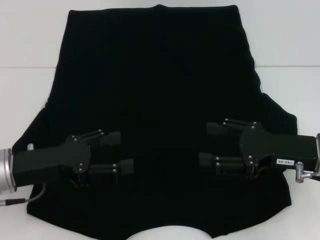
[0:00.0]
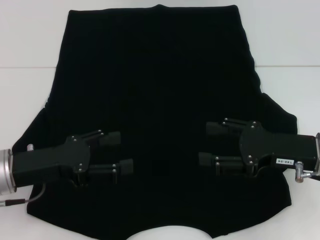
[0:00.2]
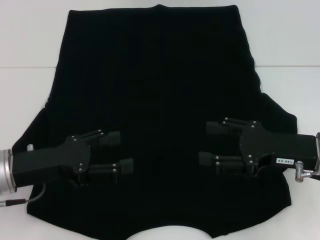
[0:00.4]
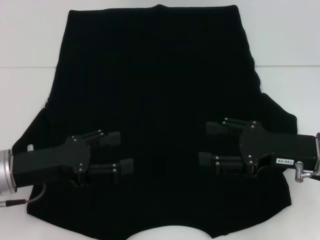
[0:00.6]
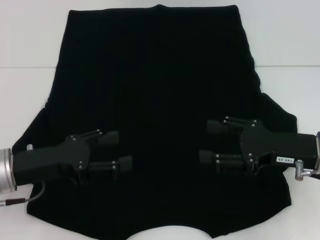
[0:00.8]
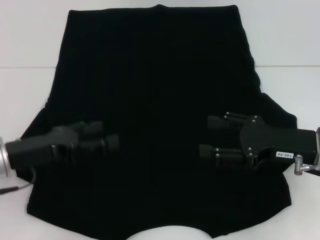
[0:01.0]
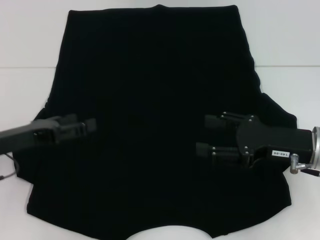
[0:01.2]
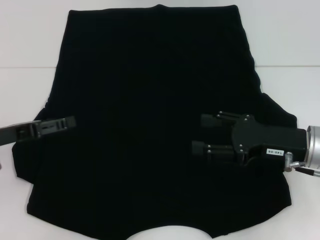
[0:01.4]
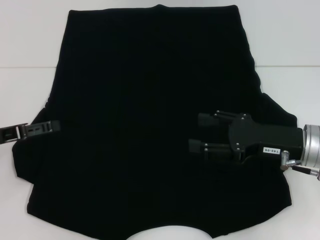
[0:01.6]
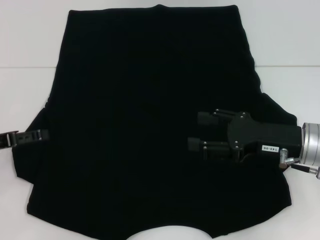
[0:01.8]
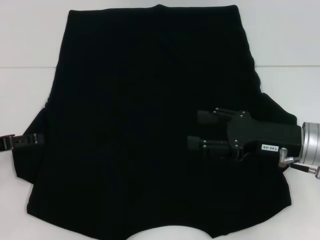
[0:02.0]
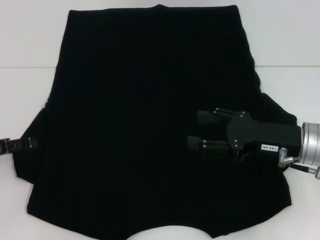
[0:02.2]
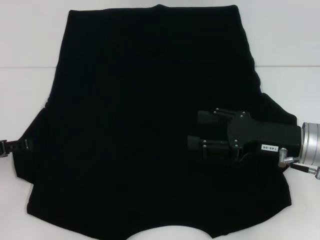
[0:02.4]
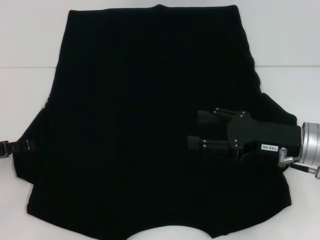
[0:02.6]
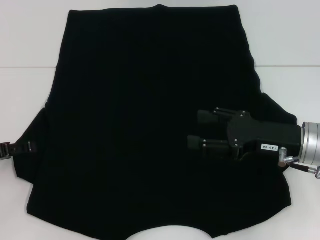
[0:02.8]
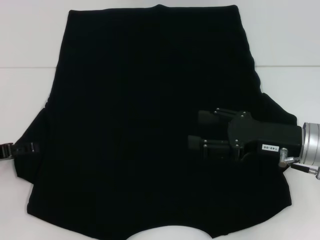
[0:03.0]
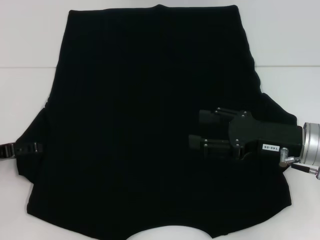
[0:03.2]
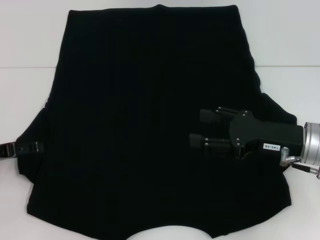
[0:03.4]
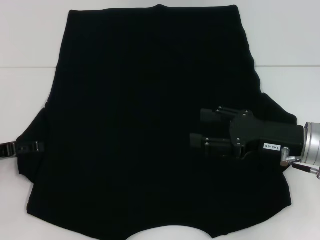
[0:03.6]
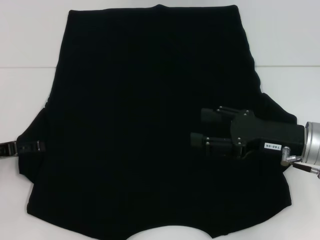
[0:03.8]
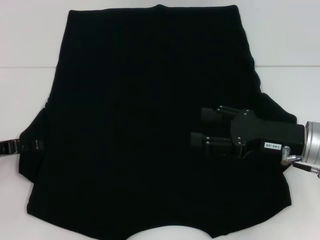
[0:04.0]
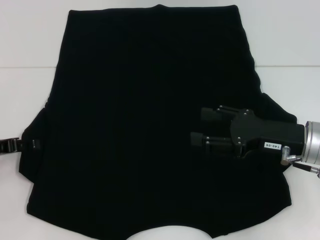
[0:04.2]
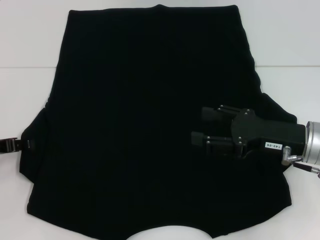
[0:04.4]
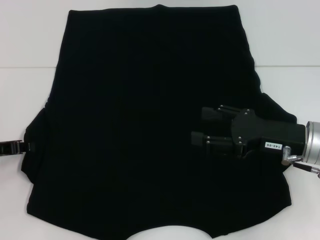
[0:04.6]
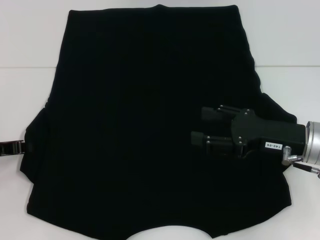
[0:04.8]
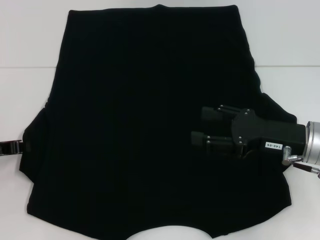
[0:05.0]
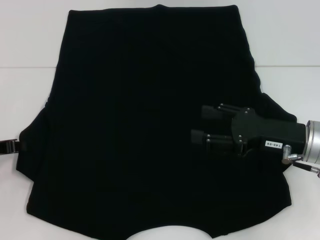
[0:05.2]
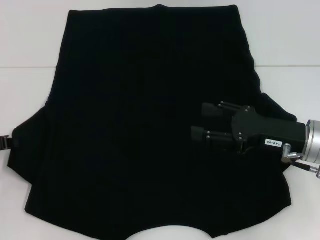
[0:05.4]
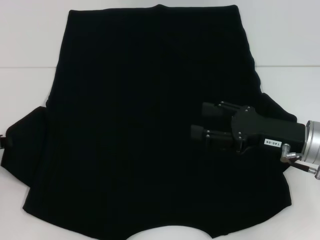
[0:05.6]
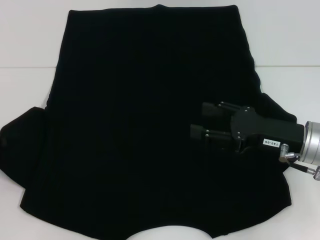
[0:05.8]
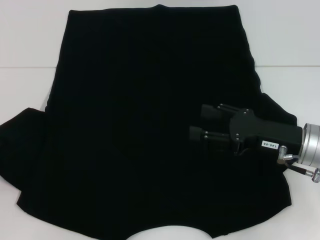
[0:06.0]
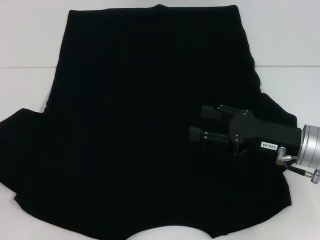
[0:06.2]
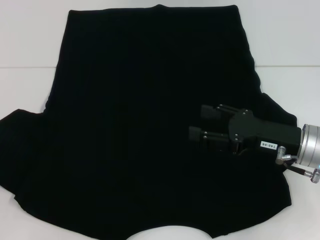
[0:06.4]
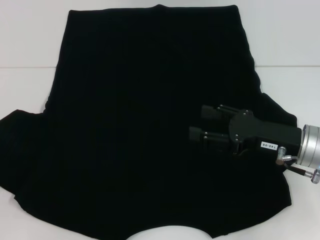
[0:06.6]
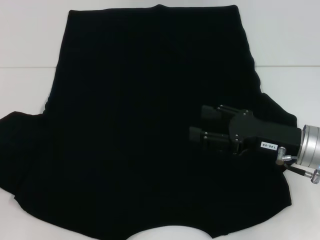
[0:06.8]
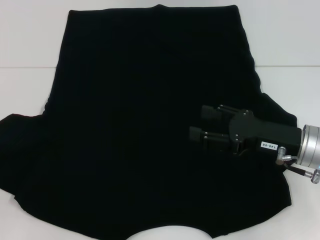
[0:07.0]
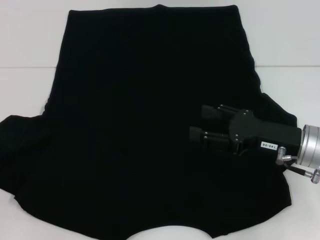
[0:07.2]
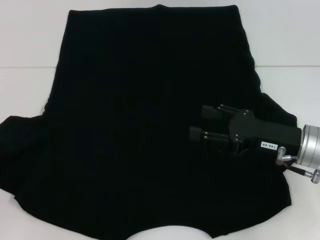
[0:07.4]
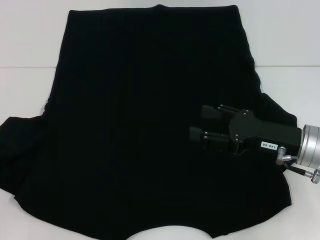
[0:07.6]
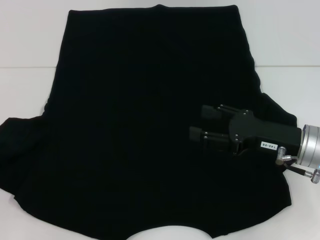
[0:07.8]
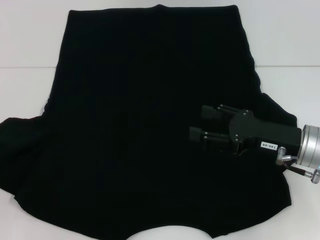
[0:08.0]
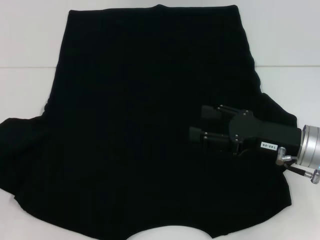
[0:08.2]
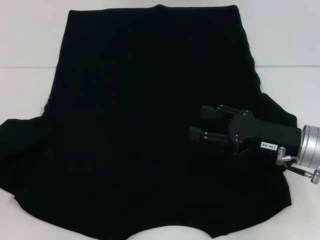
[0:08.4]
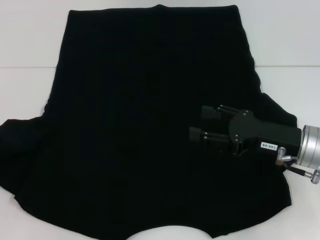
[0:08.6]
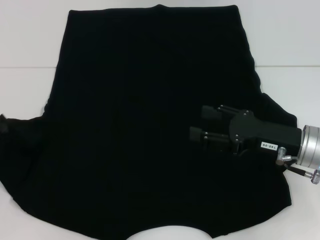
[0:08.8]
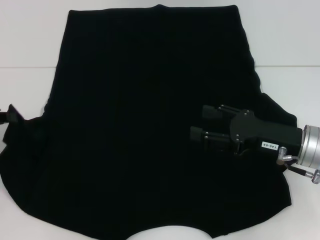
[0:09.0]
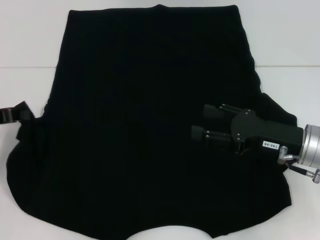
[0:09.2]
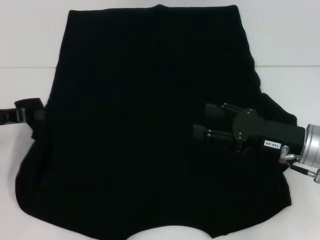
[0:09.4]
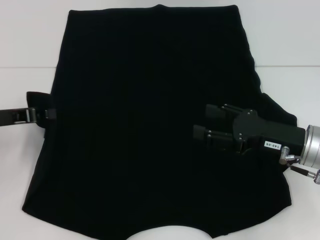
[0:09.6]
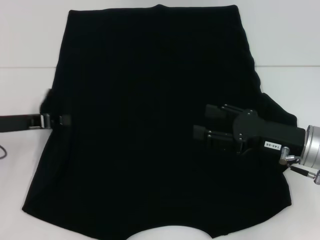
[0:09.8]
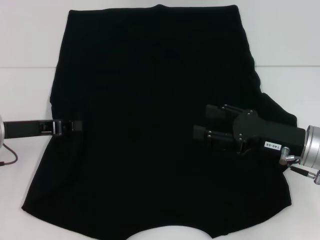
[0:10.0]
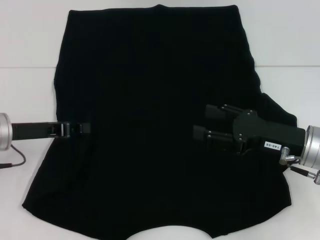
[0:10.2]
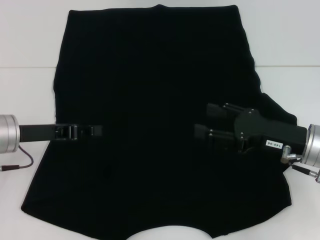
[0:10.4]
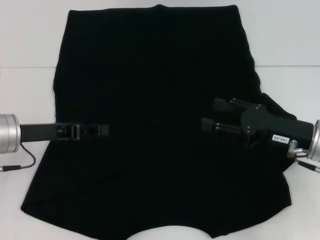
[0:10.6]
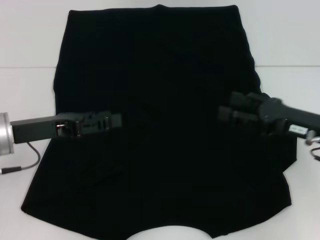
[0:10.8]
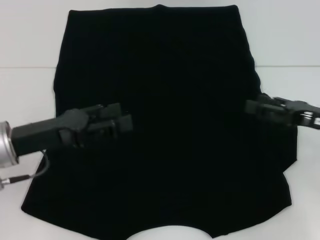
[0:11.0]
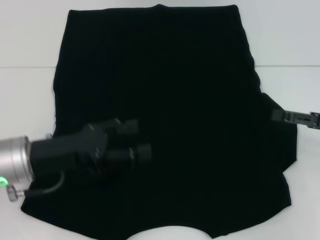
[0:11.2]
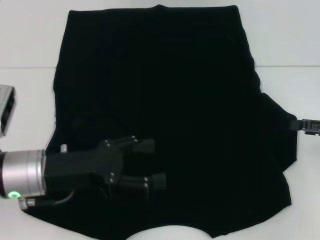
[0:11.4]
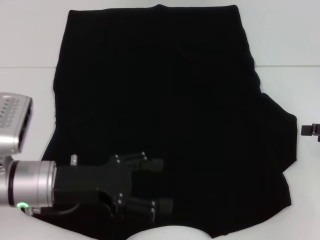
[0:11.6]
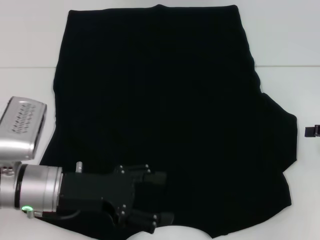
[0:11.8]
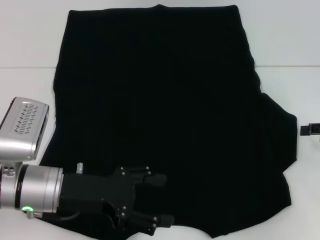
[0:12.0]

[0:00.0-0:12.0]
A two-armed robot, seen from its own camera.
Step, 0:00.0 to 0:10.6: Fold the bottom left sleeve with your left hand.
0:00.0 to 0:01.6: The left gripper is displaced to the left by about 10 cm.
0:01.6 to 0:03.0: The grippers stay close to where they were, moving slightly.
0:03.0 to 0:04.4: Both grippers stay about where they are.
0:04.4 to 0:06.0: The left gripper closes.
0:06.0 to 0:07.6: The grippers stay close to where they were, moving slightly.
0:07.6 to 0:09.0: The left gripper changes place by approximately 5 cm.
0:09.0 to 0:10.4: The left gripper goes some 10 cm to the right.
0:10.4 to 0:12.0: The right gripper heads to the right, covering approximately 15 cm; the left gripper travels to the right and backward by roughly 10 cm, and opens.

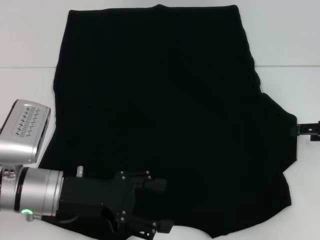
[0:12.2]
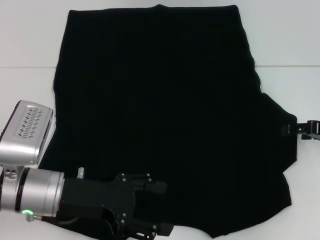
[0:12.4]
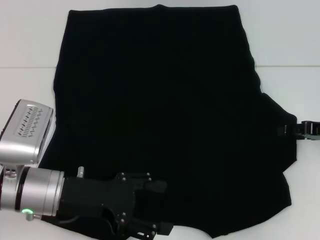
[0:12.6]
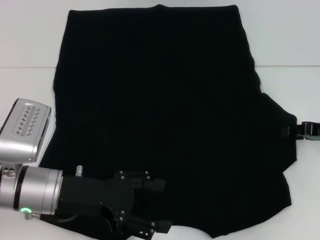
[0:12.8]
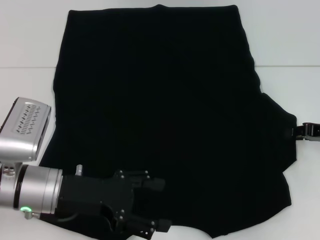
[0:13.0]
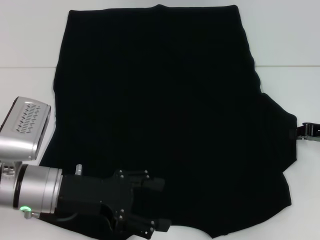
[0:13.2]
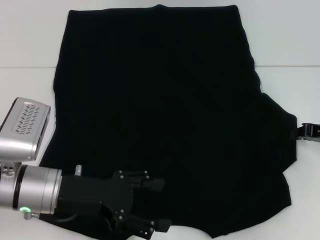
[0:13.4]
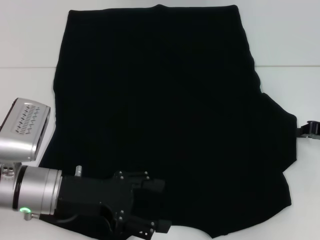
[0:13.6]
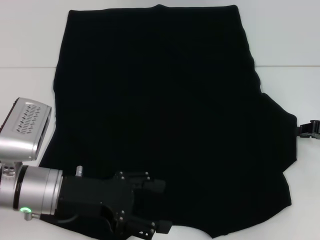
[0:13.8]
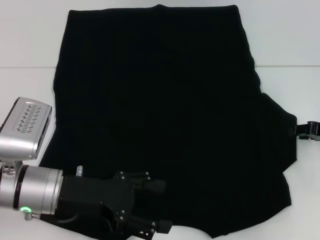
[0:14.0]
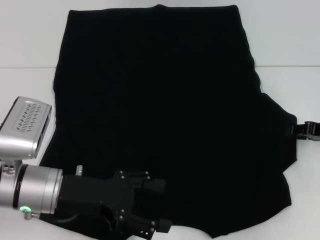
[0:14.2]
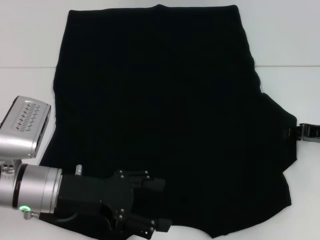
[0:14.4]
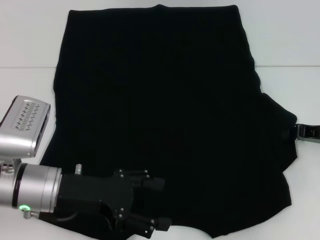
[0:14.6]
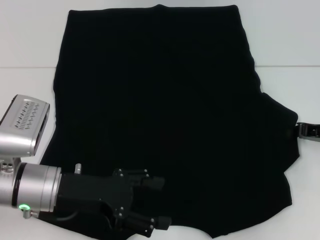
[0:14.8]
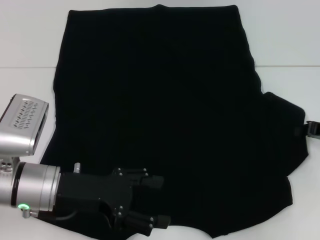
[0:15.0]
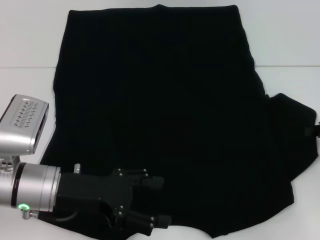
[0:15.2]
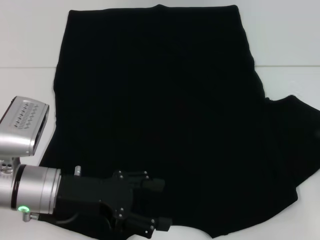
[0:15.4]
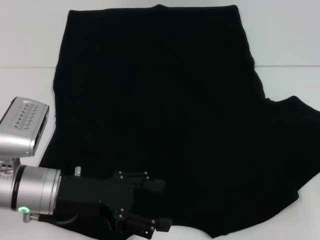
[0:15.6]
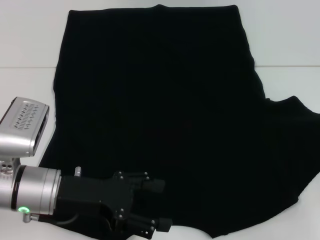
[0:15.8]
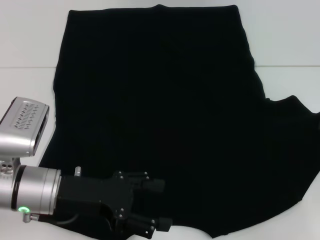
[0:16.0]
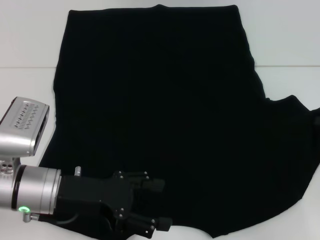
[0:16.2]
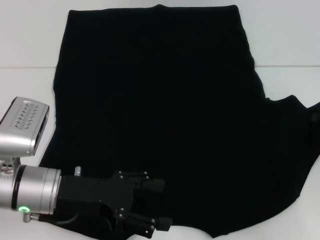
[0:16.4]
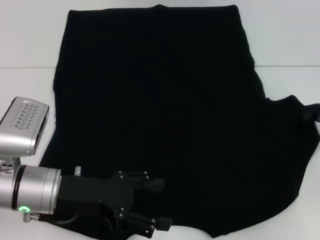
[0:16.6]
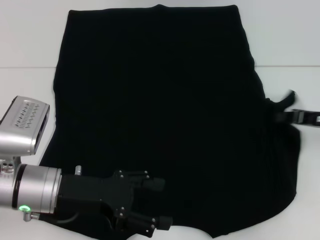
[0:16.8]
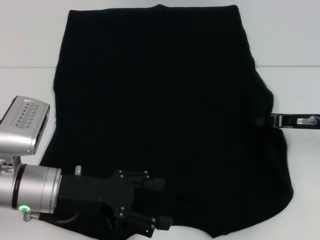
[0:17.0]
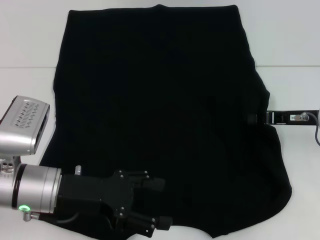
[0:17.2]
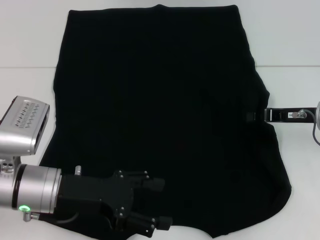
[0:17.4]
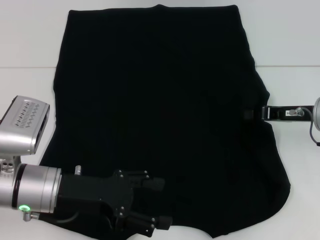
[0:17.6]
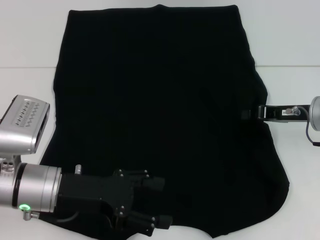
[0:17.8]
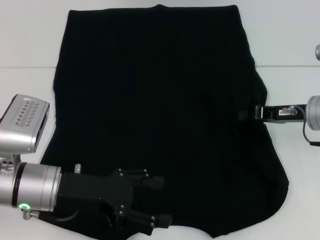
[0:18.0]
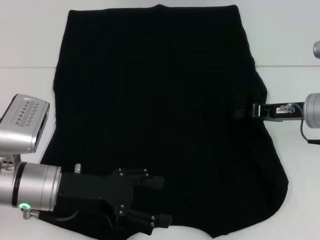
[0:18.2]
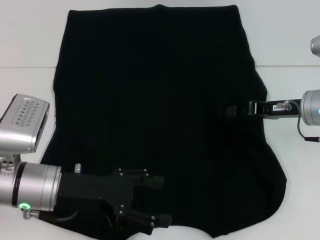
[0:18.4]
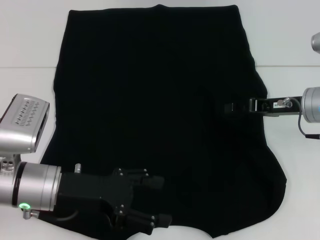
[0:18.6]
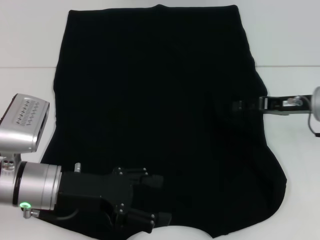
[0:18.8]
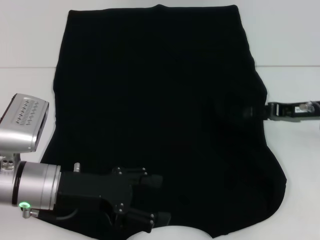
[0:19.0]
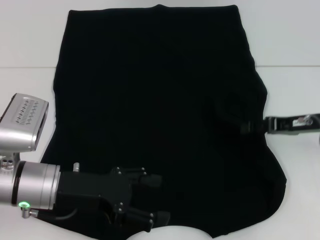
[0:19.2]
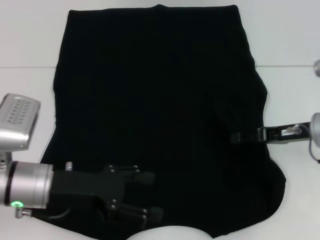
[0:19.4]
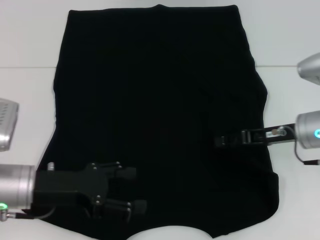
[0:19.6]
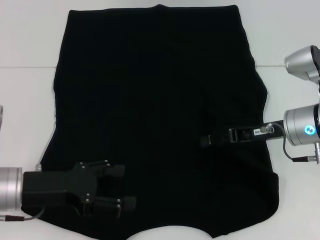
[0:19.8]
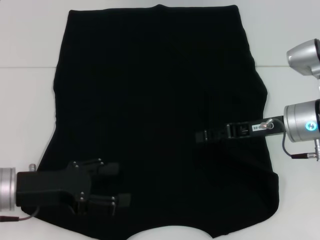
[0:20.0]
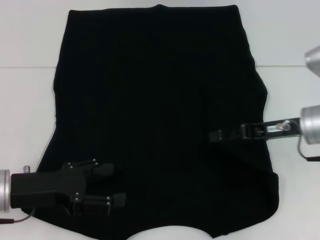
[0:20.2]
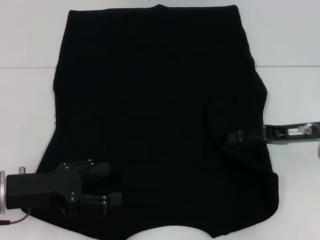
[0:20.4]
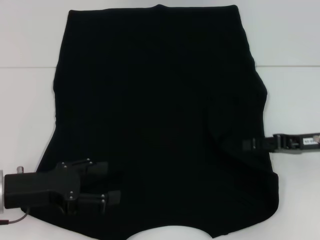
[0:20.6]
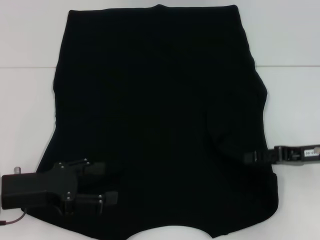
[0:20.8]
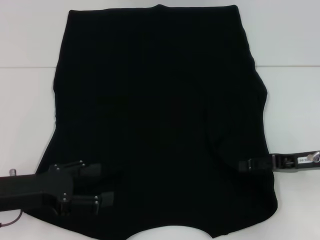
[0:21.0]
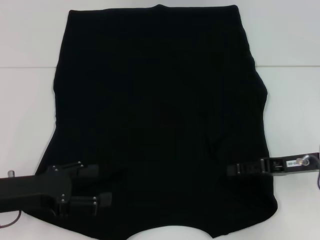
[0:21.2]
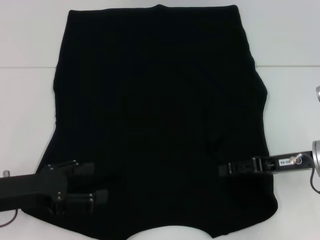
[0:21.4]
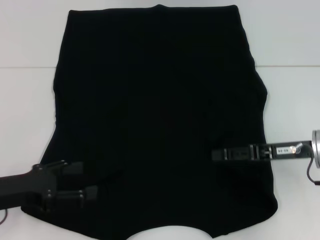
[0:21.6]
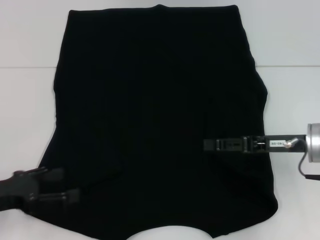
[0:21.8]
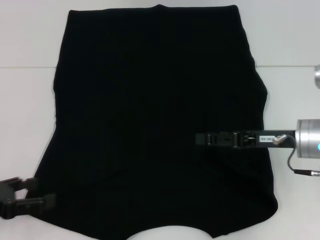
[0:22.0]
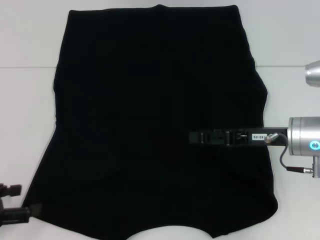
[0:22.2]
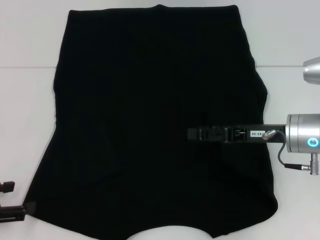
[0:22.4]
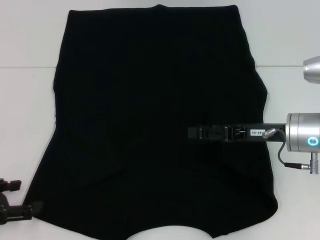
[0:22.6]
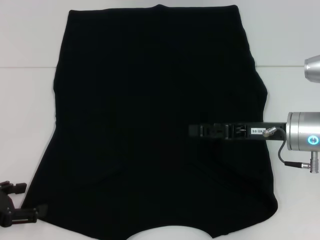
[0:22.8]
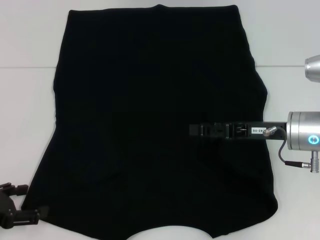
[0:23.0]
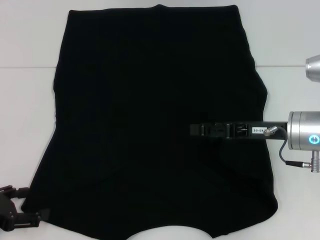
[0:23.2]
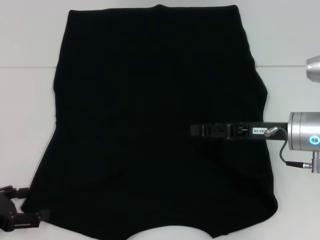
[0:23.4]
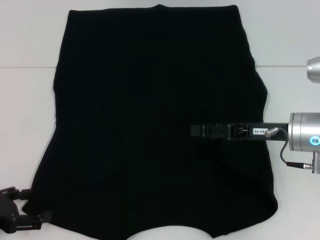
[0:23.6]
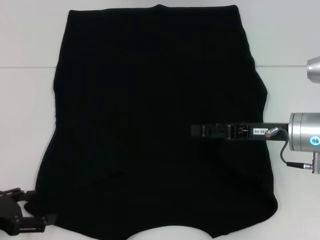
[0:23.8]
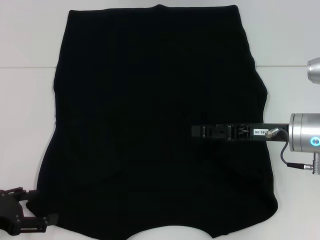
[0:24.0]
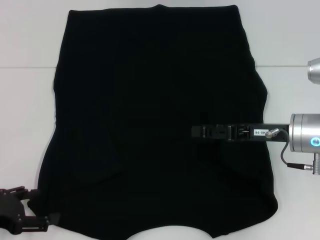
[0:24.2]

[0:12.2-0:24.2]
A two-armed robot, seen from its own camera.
Step, 0:12.2 to 0:20.2: Fold the bottom right sleeve with your right hand.
0:13.8 to 0:15.2: The right gripper opens and closes again.
0:15.2 to 0:16.6: The grippers stay close to where they were, moving slightly.
0:16.6 to 0:18.2: The right gripper moves to the left, roughly 10 cm.
0:18.2 to 0:19.8: The right gripper opens its fingers.
0:19.8 to 0:21.2: The right gripper moves approximately 5 cm.
0:21.2 to 0:22.6: The two grippers go some 5 cm to the left.
0:22.6 to 0:24.2: The grippers move only a little.
